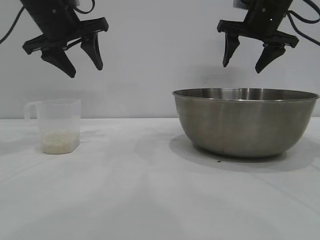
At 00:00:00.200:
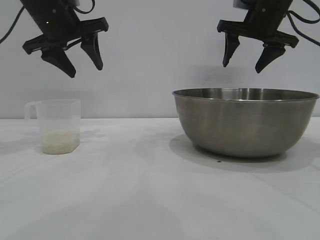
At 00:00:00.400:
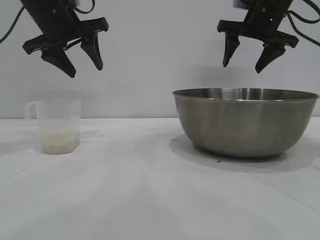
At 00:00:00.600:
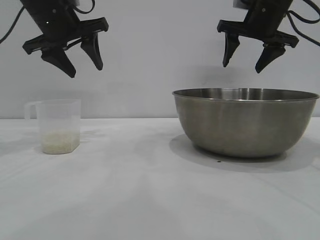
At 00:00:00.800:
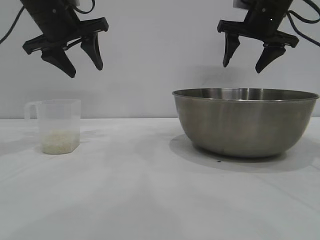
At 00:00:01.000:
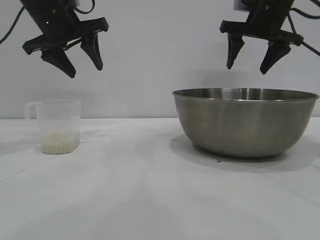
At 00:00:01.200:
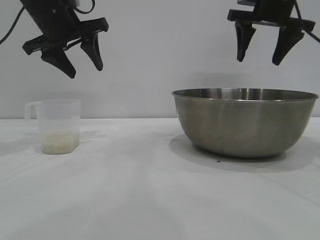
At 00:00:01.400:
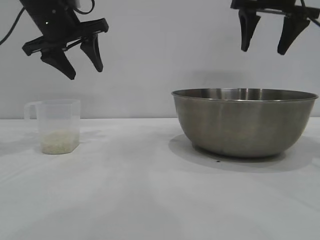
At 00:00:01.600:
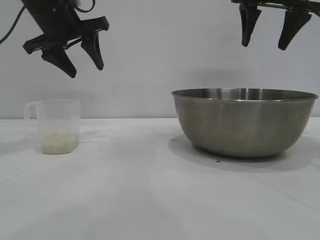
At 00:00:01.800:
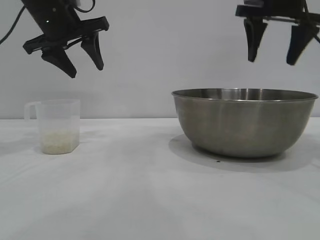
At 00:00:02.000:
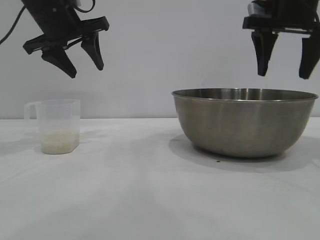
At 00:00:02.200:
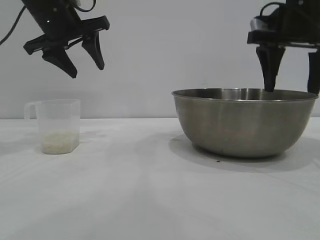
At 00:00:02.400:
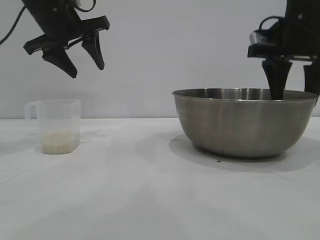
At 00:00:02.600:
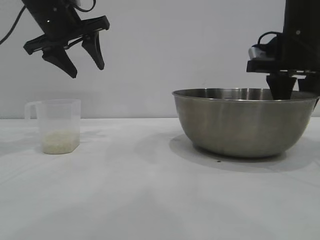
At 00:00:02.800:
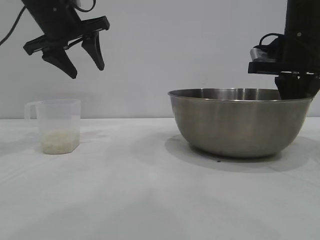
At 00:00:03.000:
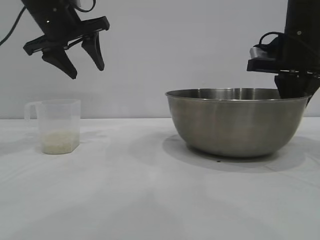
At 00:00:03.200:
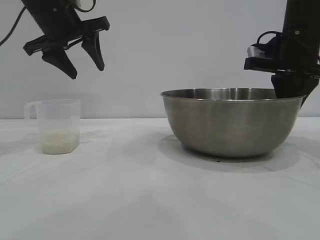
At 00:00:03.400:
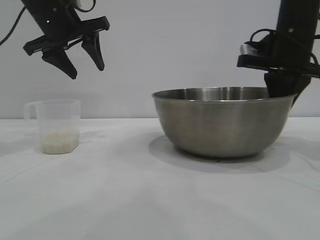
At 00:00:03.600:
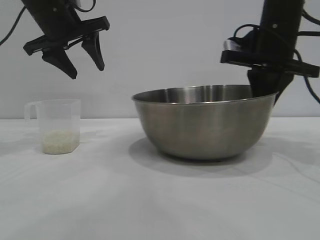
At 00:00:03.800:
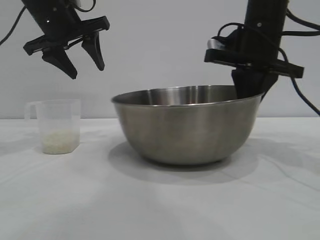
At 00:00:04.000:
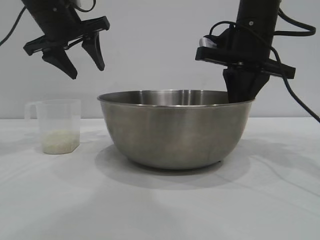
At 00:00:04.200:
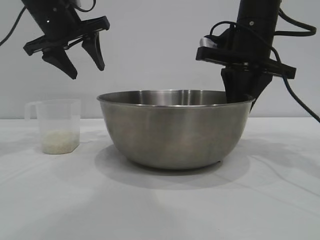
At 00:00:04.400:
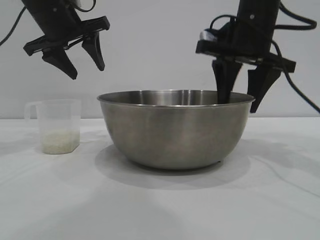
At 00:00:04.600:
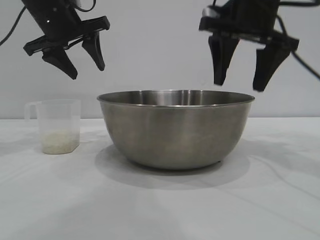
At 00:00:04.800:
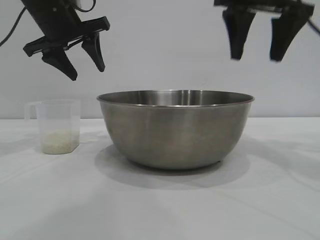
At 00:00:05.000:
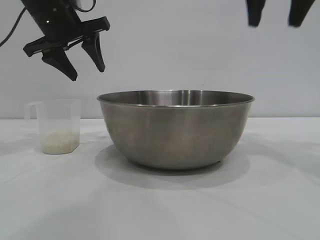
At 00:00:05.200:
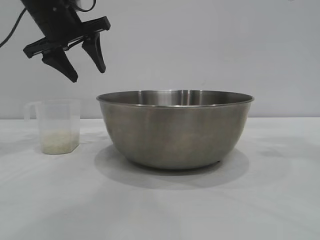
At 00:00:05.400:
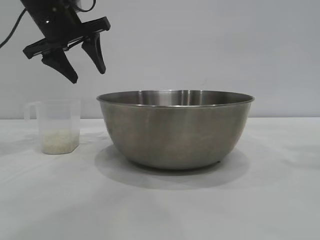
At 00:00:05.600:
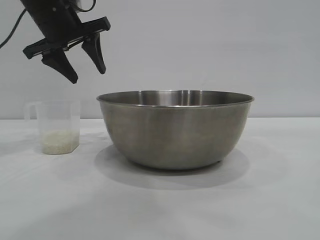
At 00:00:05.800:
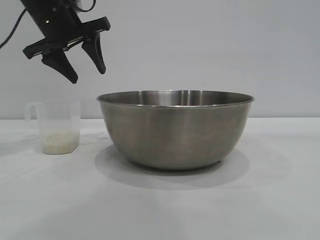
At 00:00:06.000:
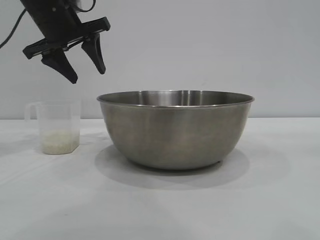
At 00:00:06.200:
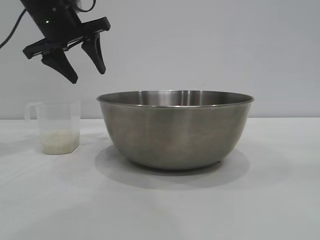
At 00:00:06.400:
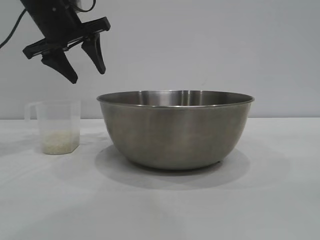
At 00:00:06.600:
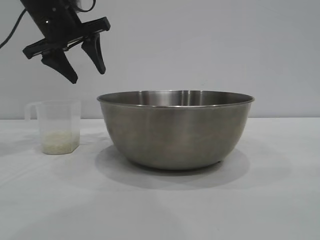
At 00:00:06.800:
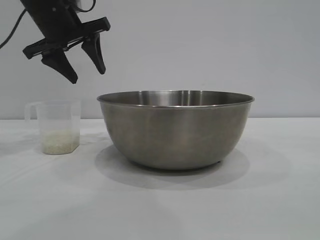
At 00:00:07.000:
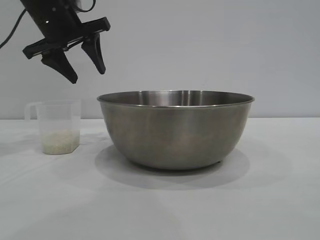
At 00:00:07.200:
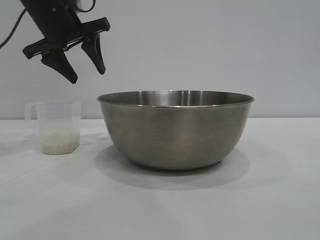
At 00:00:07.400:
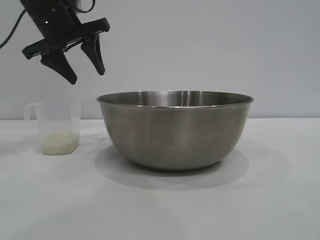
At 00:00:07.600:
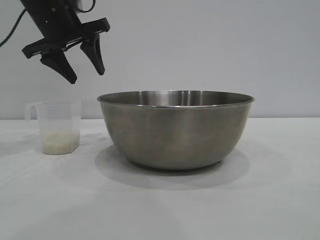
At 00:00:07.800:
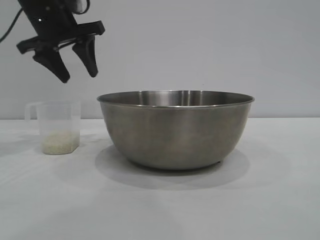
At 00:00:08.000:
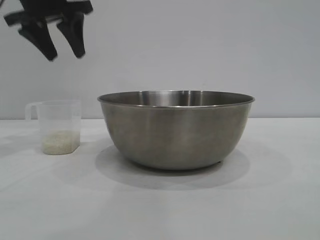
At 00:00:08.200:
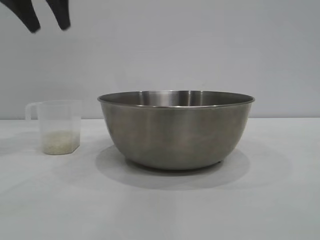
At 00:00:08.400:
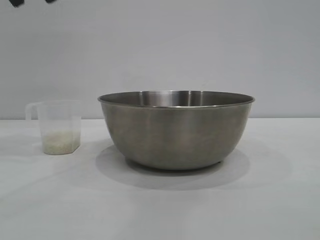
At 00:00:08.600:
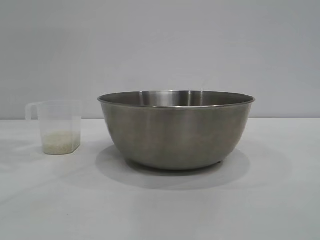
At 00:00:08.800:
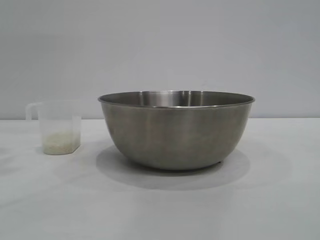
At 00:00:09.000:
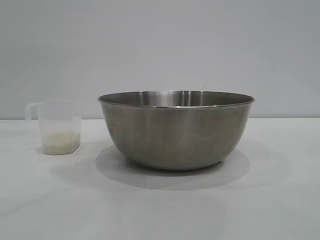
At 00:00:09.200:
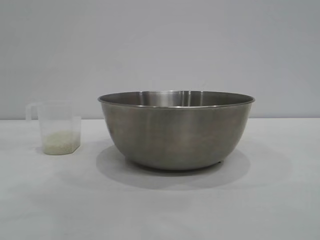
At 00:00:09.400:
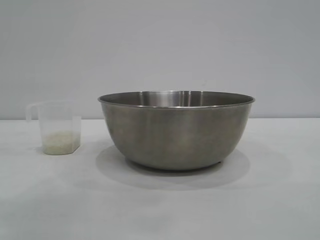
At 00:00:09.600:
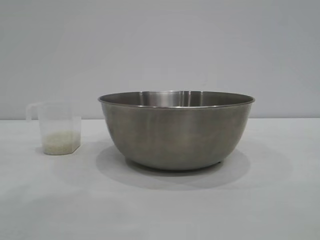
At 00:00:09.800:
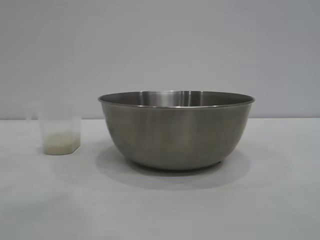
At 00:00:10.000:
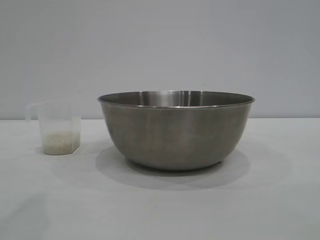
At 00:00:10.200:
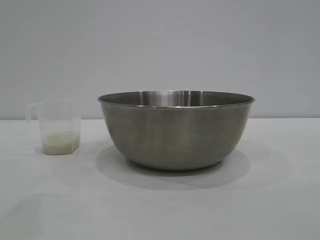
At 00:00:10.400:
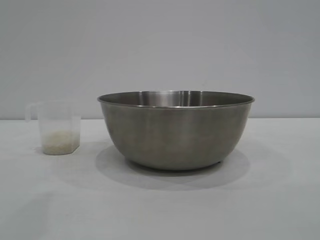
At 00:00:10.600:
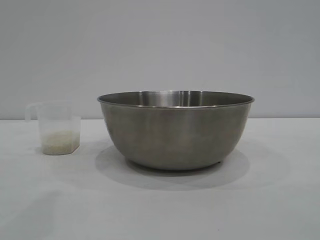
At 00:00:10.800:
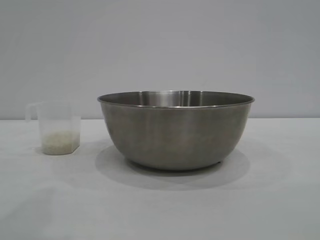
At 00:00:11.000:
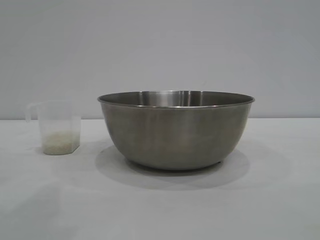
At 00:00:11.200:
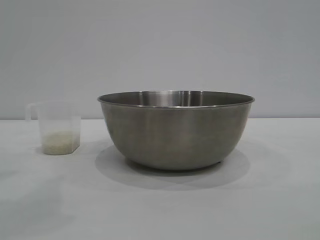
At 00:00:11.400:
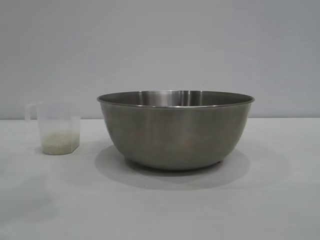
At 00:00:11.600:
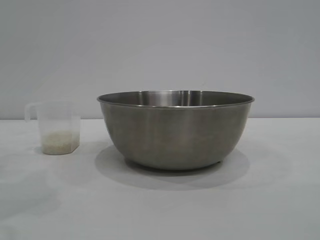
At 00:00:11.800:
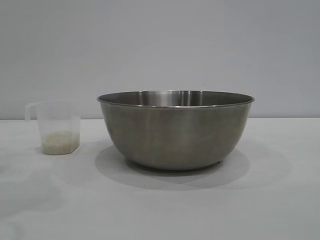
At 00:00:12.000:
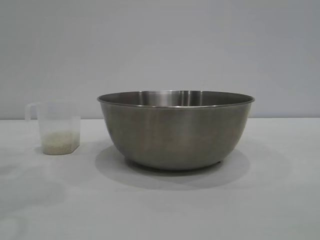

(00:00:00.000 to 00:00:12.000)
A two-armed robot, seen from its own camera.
Task of the whole recording: the right gripper grasp the rice container and place it in the center of the table, the left gripper grasp the rice scoop and pour the rice into the rice container.
Step, 00:00:00.000 - 00:00:04.600: Move the bowl to the center of view with the right gripper.

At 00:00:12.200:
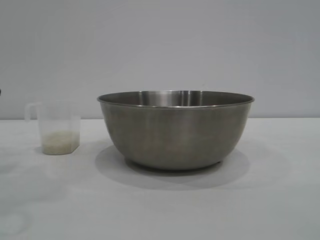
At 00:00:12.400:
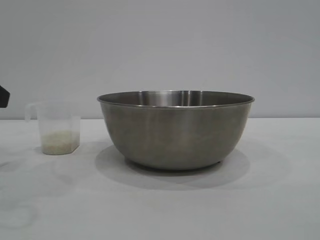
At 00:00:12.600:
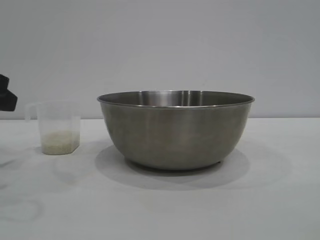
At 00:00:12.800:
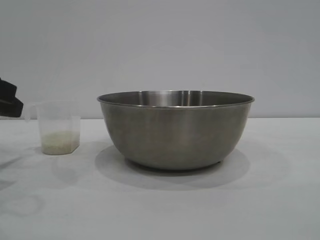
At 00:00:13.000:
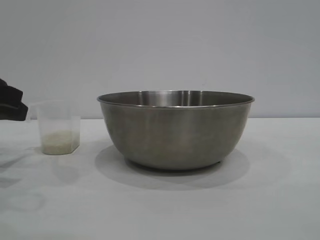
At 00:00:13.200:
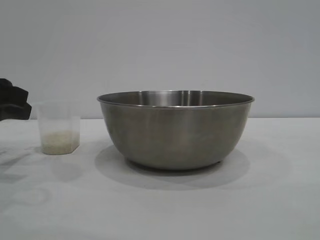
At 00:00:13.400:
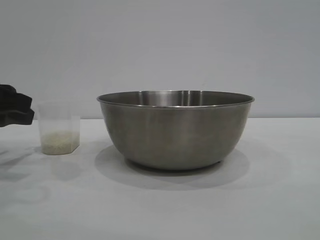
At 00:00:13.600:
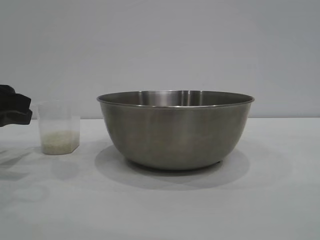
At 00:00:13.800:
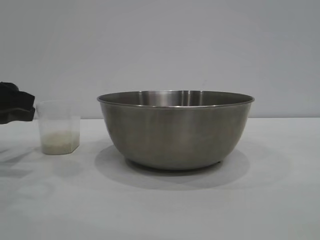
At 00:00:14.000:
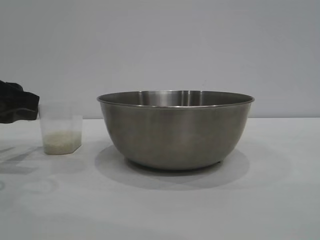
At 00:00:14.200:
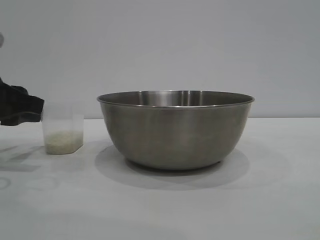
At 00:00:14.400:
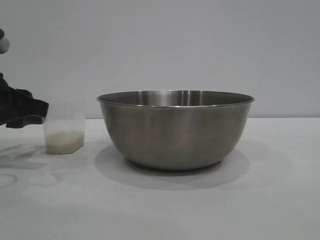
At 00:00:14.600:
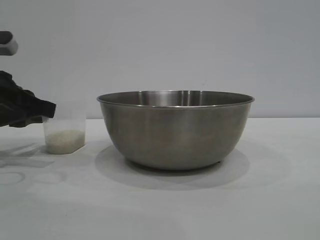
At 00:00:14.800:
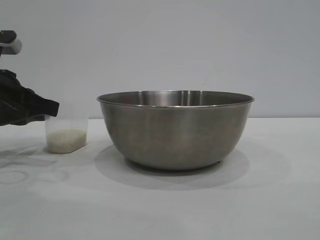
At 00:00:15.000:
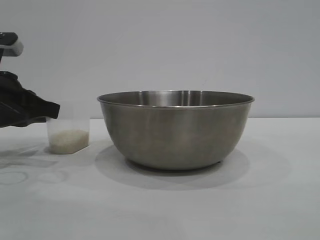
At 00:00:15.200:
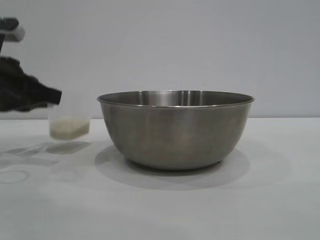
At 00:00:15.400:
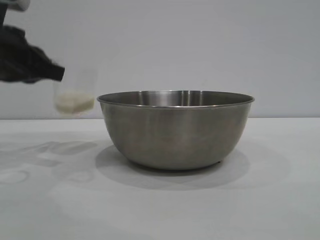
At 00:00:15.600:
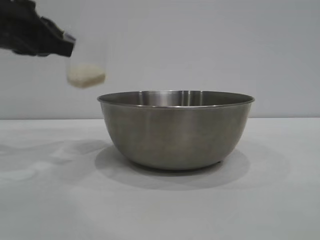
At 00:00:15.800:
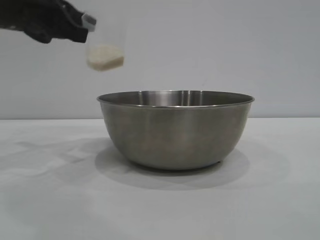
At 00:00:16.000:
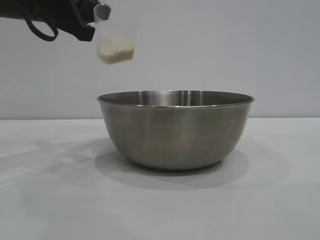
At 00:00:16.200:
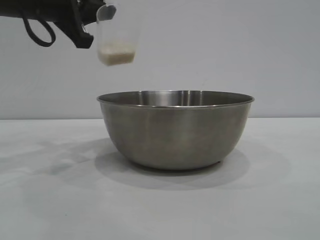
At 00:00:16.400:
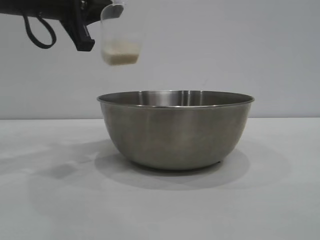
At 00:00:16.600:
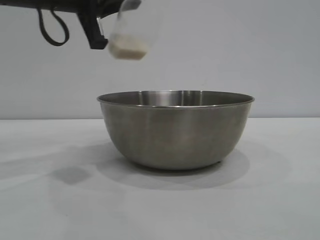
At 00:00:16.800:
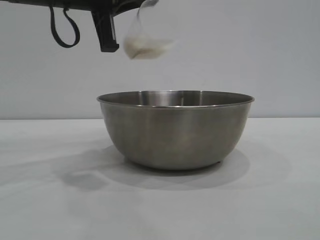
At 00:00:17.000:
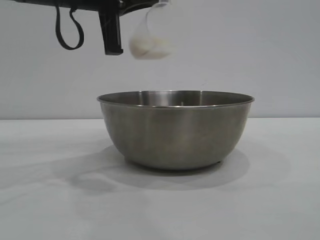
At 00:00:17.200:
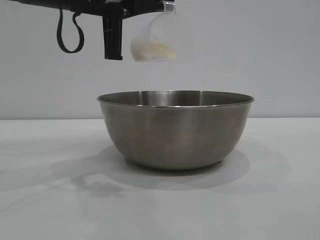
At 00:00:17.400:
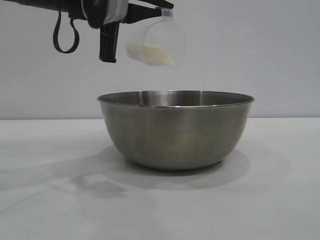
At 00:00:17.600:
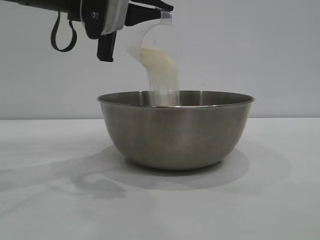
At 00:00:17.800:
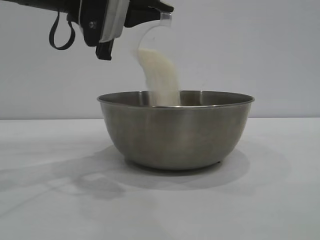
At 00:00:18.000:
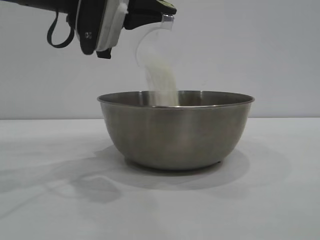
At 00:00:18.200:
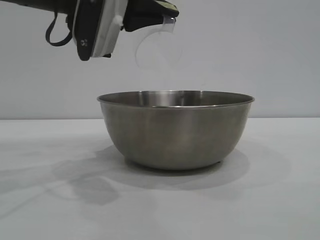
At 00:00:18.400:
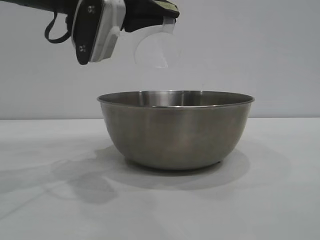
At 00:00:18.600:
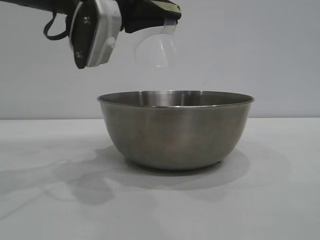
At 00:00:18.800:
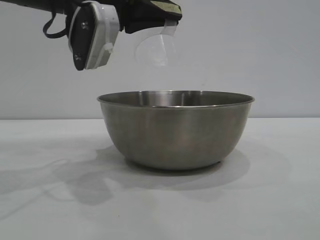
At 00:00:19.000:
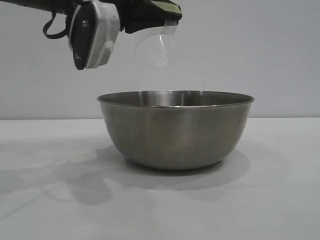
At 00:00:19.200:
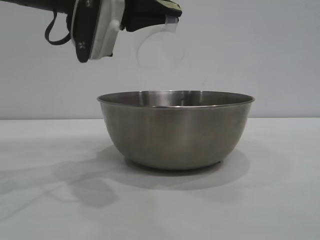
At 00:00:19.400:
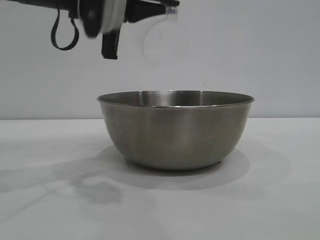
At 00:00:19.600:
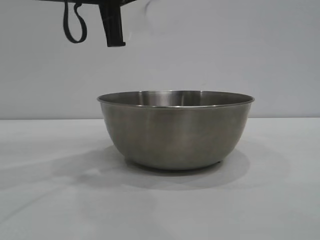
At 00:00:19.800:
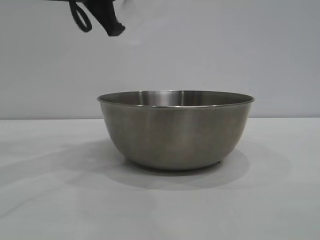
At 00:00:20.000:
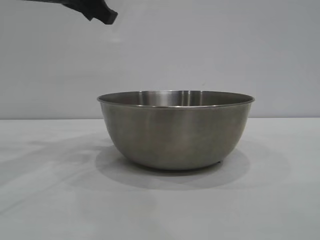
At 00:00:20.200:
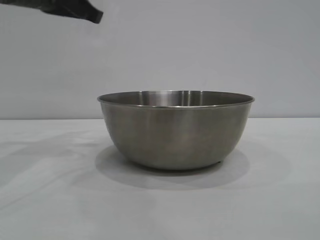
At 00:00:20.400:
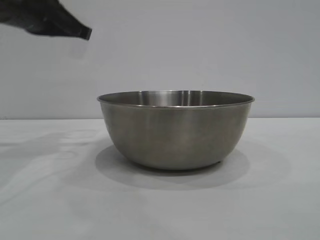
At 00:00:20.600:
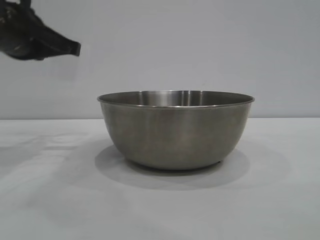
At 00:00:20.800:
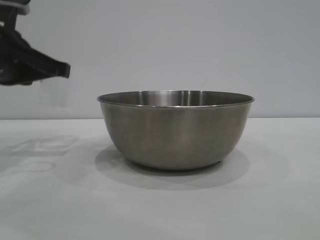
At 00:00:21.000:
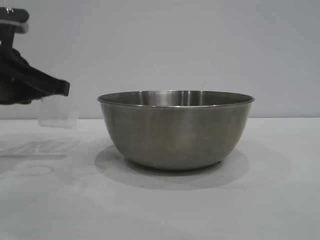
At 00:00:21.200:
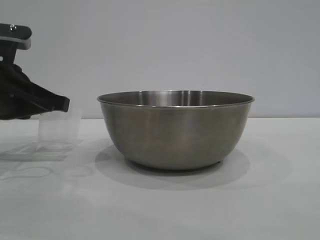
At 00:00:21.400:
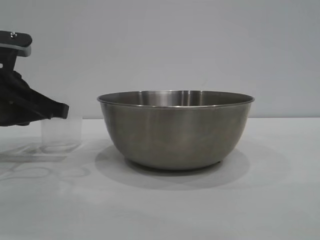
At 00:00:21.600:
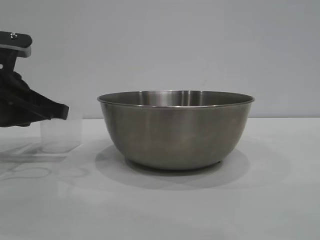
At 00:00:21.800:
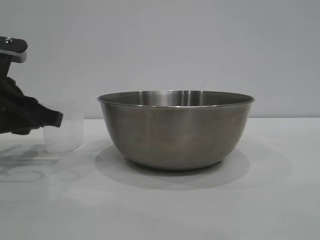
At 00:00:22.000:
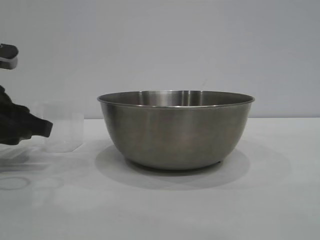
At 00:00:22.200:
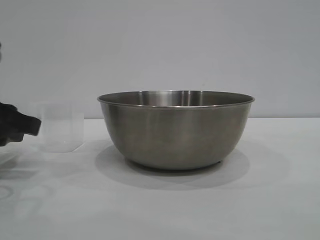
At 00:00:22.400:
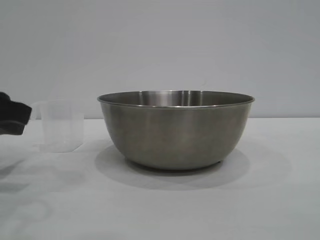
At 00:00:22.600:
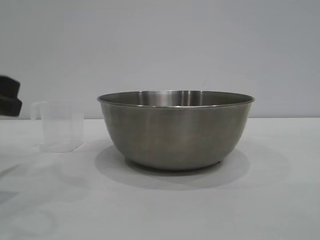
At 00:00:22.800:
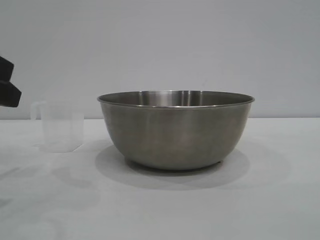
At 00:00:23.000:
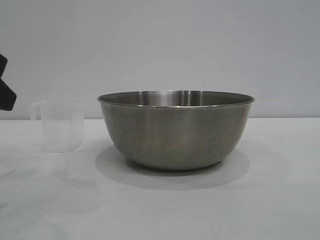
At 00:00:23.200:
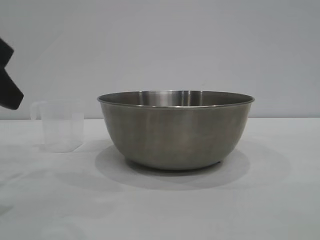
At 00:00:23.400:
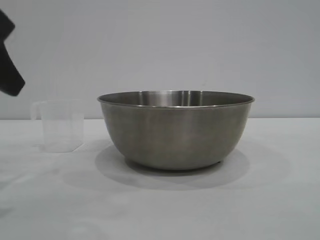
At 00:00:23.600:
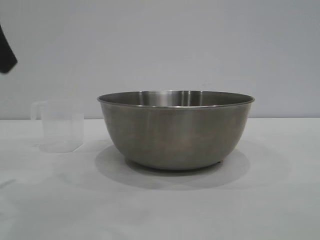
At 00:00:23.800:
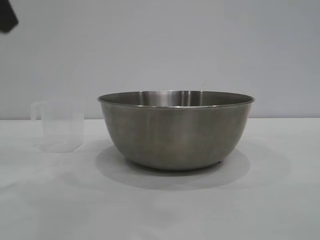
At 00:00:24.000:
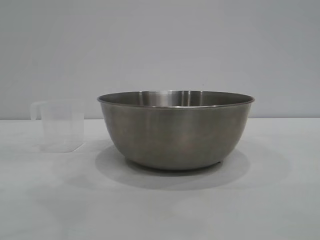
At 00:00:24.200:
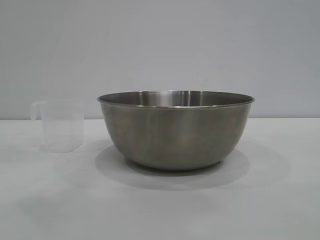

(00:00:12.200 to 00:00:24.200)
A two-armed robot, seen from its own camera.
Task of the whole recording: the right gripper grasp the rice container and place it in the center of the table, the left gripper grasp the rice scoop and pour the rice into the rice container.
Step, 00:00:12.200 - 00:00:15.200: Pick up the cup with rice in it with the left gripper.
Step, 00:00:15.400 - 00:00:18.800: Pour the rice from the cup into the bowl with the left gripper.
Step, 00:00:19.000 - 00:00:22.000: Place the cup on the table with the left gripper.
